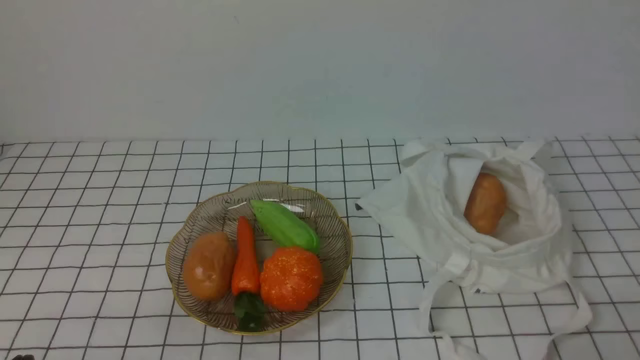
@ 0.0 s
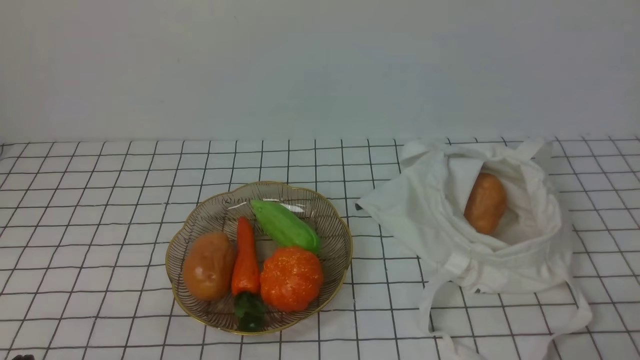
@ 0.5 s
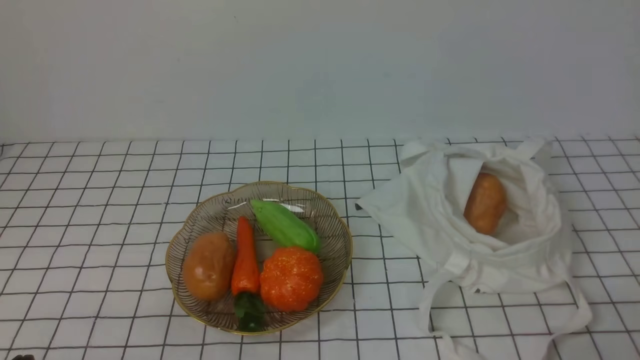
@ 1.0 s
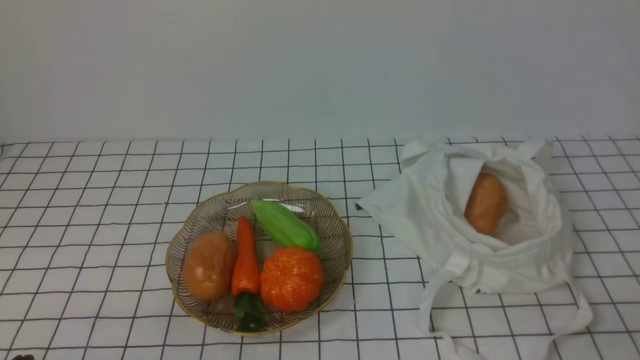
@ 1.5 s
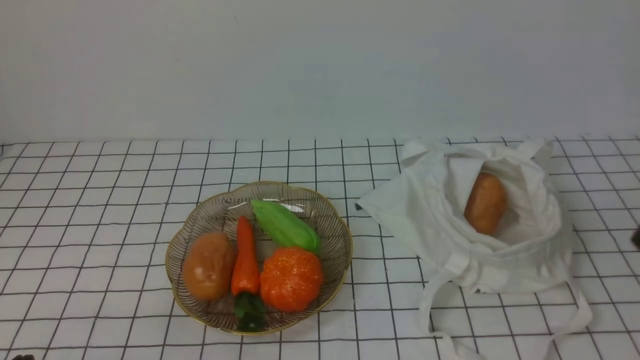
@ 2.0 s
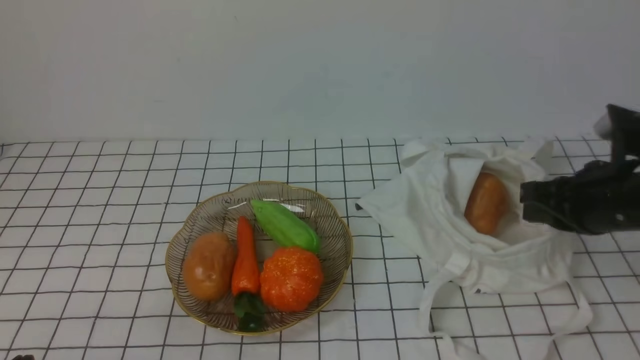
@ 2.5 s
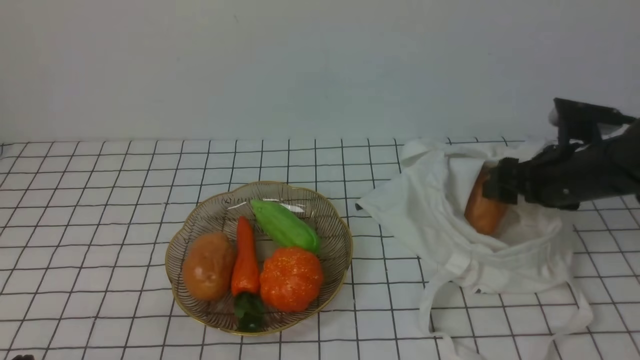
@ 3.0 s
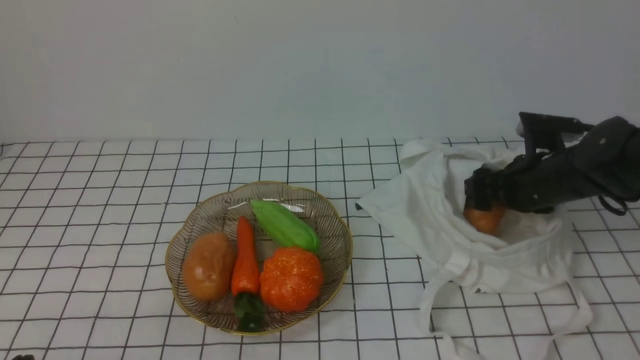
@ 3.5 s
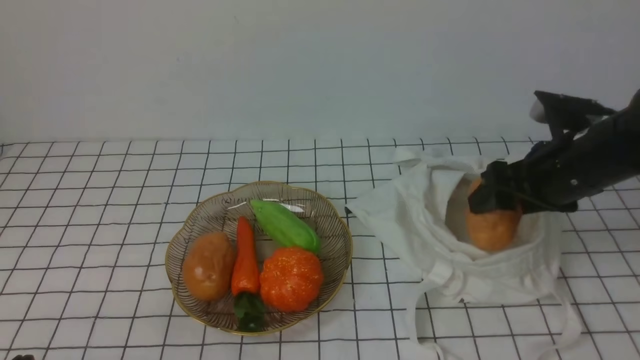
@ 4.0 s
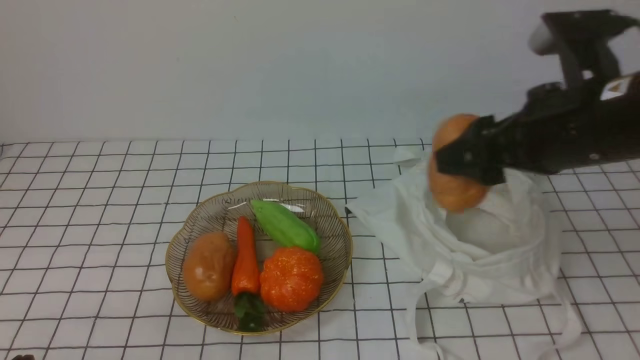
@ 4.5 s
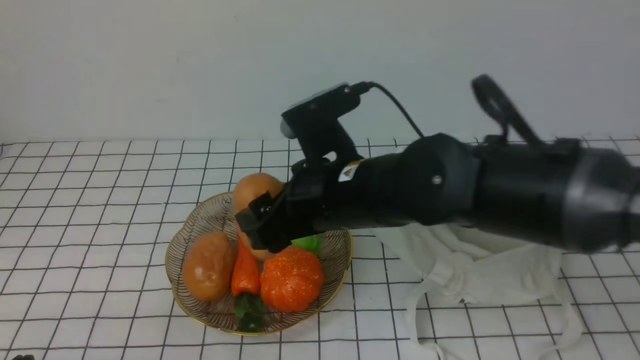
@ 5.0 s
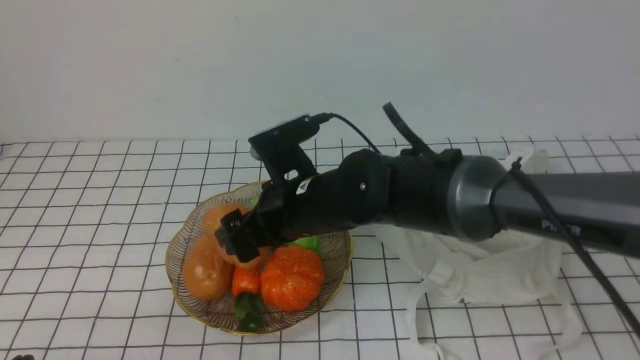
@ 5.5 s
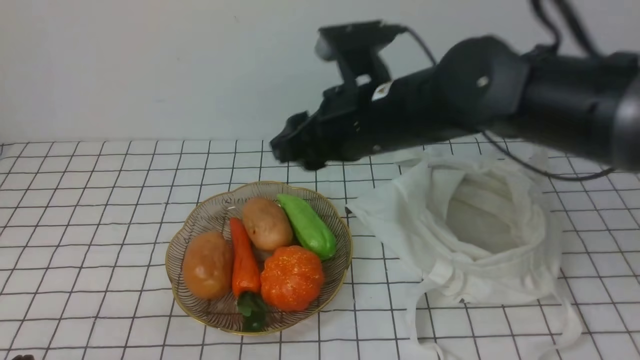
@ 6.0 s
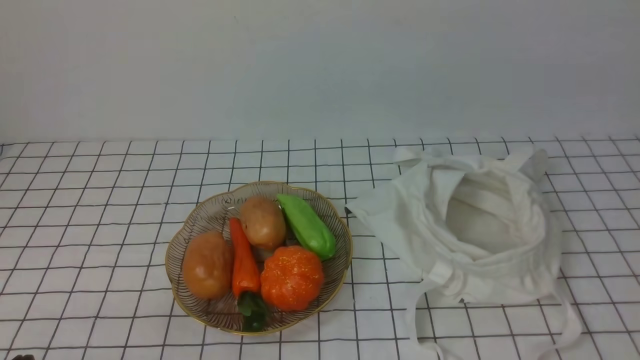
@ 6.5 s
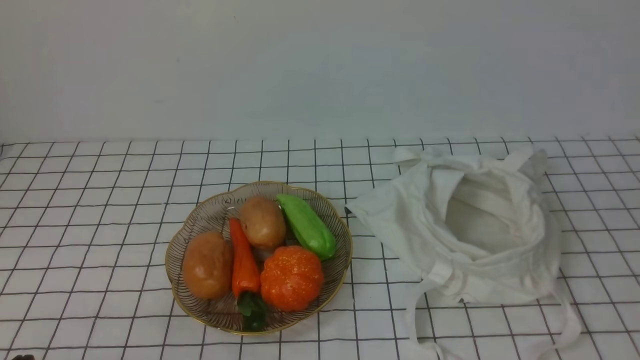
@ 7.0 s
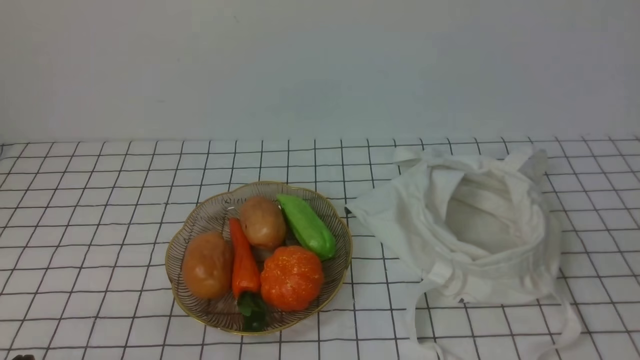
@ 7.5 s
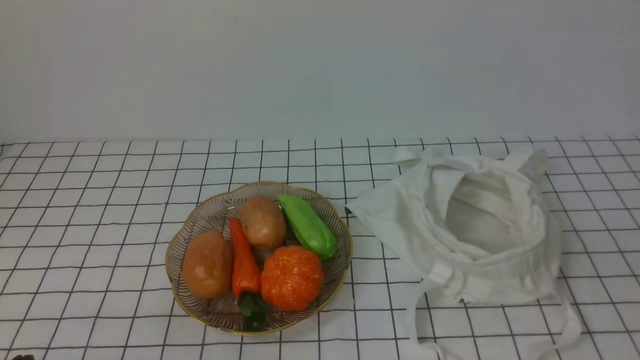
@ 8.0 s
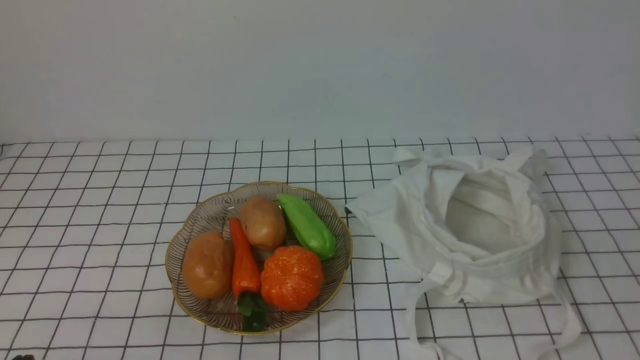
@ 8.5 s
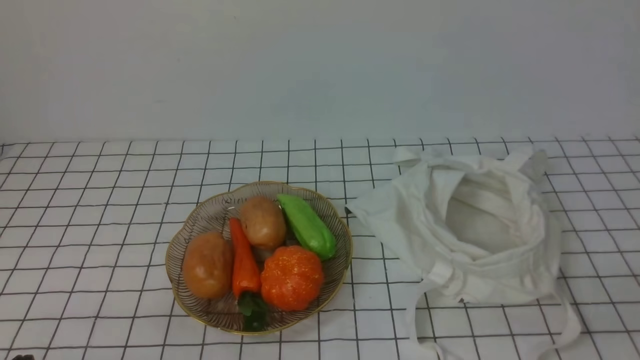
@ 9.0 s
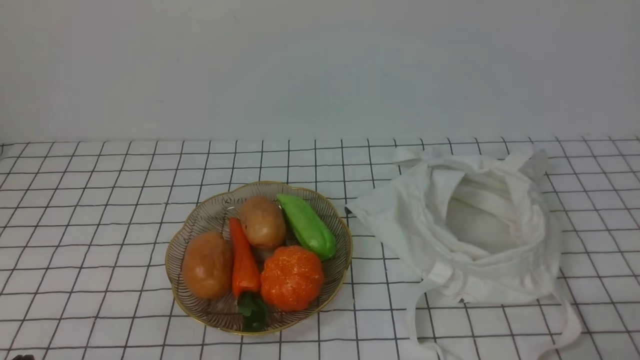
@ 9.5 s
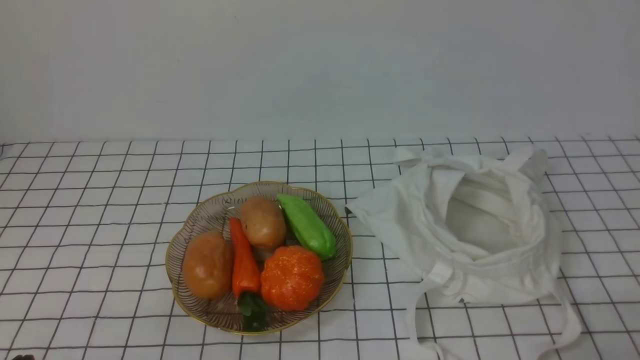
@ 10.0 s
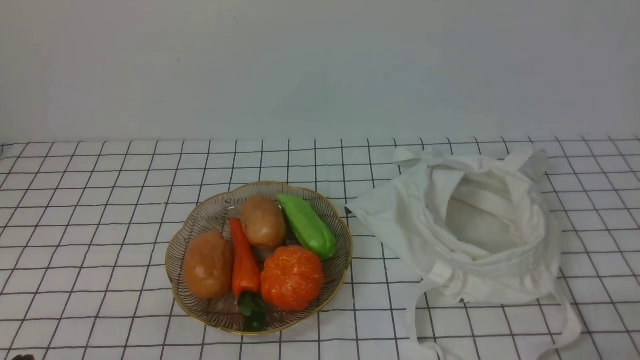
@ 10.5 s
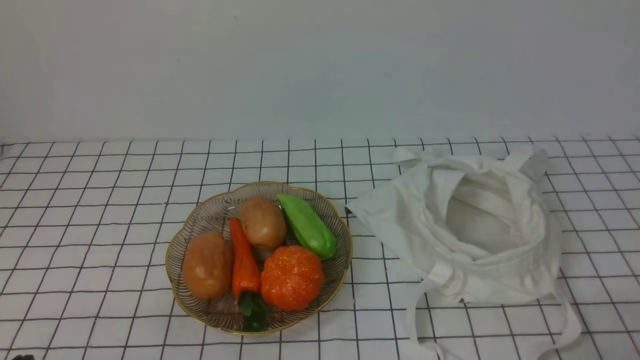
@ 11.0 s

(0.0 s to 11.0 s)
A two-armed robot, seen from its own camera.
Task of the whole recording: take vegetables from bag on white checkered tablecloth place on plate.
Step, 0.0 s - 3.0 s: Grasp the potato with right gripper.
Step, 3.5 s - 5.5 s: Place the potato on the plate with right gripper.
2.0 s - 3.5 s: The right gripper heads forward and downward, covering some 30 cm, and opens up.
3.5 s - 5.5 s: The right gripper travels to the left by about 25 cm.
5.5 s - 7.5 s: The right gripper moves to the right and backward, some 50 cm, and closes up.
